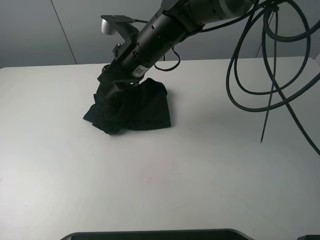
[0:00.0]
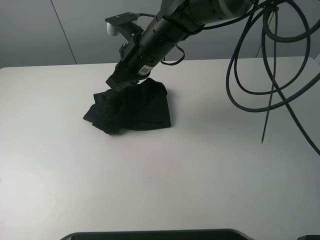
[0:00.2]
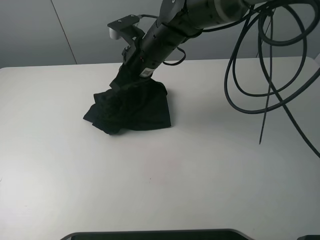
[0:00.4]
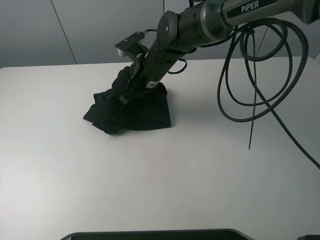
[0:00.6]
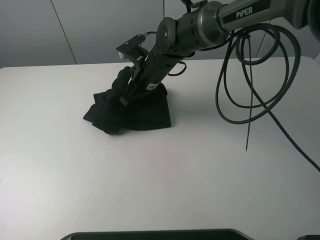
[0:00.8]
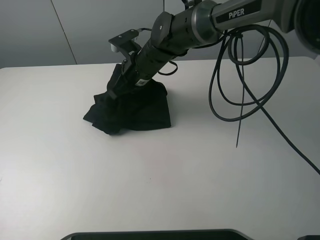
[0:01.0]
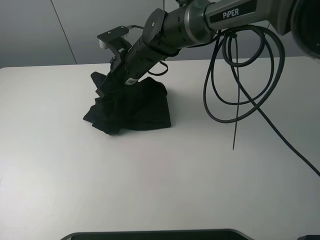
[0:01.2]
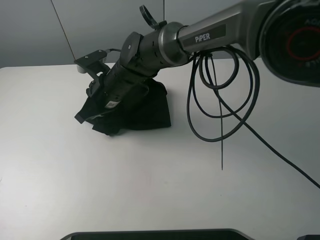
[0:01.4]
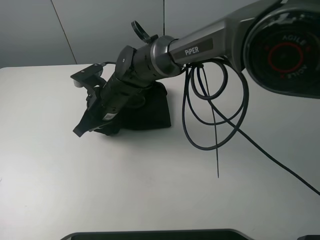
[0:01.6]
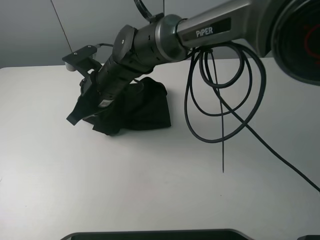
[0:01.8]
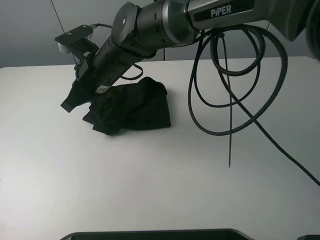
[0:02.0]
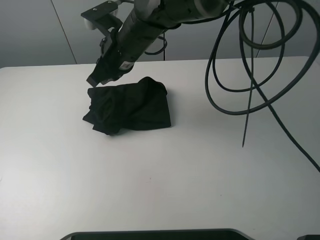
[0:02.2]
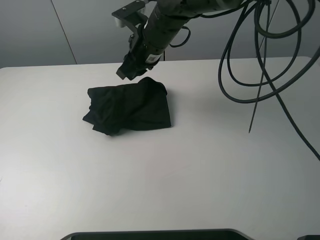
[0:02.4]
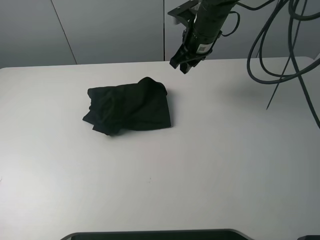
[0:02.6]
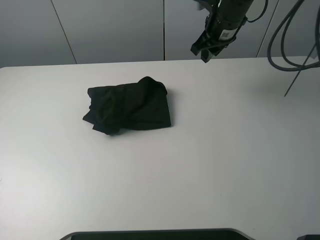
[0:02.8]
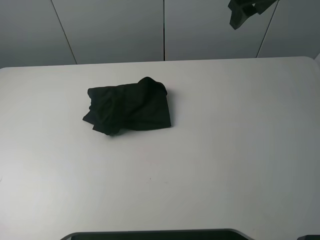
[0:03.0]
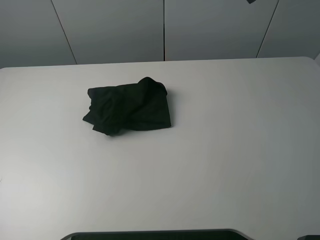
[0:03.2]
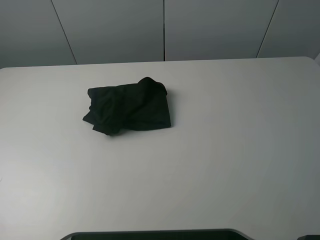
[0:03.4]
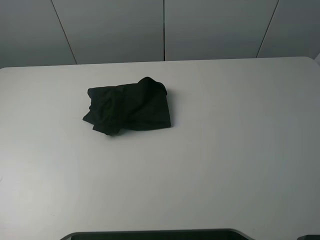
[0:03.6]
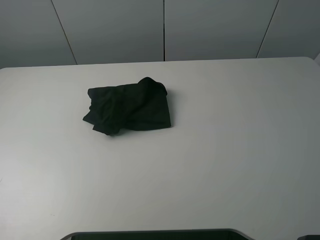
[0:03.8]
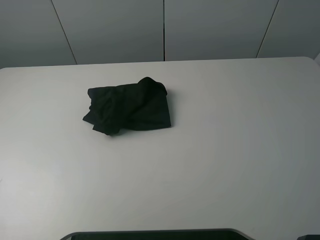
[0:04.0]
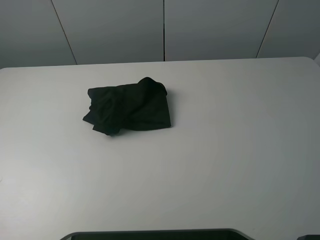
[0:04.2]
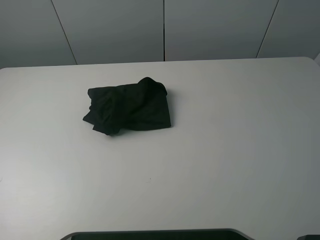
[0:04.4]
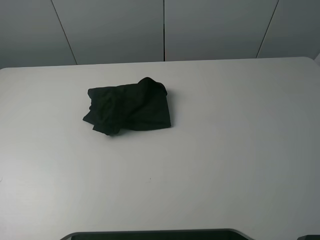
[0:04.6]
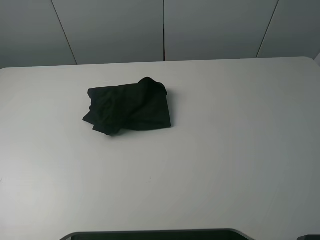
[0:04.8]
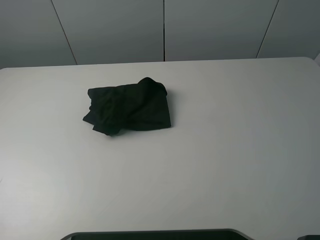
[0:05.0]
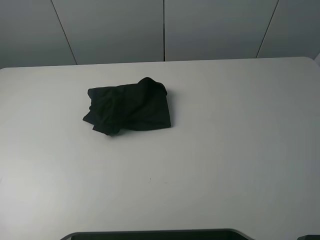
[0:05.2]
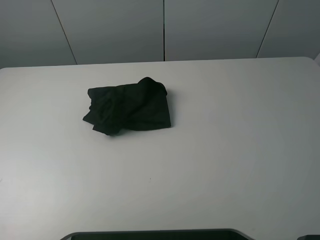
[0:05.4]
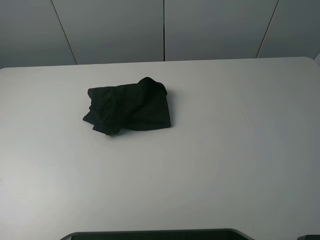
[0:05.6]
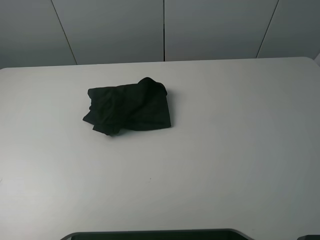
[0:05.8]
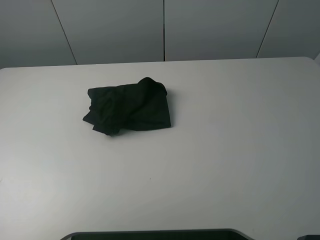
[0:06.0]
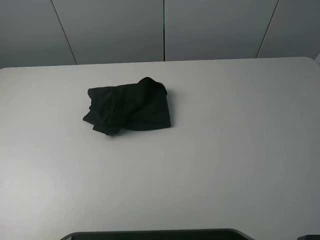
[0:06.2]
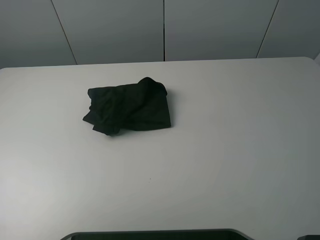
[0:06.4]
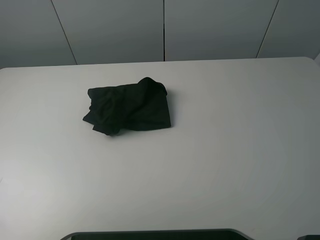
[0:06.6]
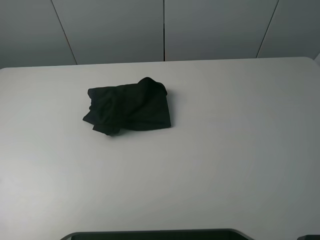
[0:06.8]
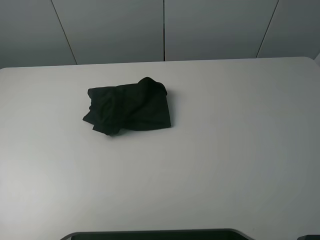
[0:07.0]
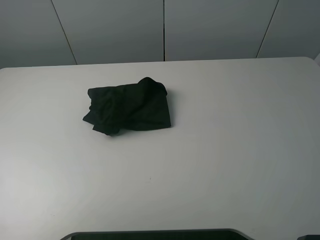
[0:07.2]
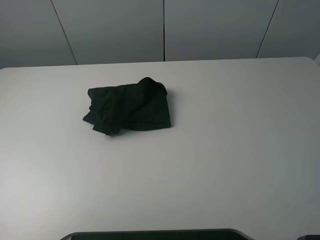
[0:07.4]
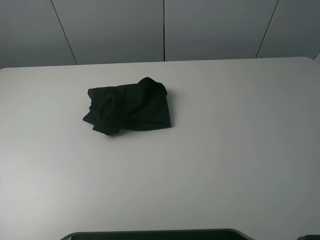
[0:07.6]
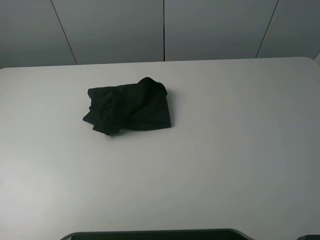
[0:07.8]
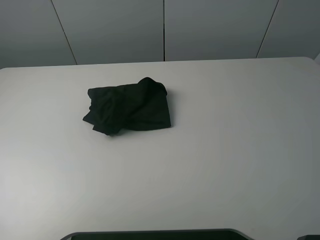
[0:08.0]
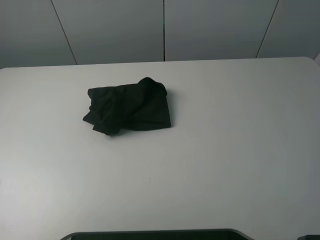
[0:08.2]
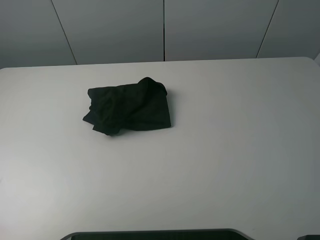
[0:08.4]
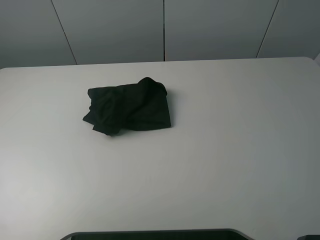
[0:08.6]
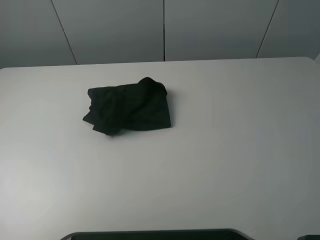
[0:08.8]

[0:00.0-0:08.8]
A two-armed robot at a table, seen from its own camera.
Task of the whole recording: fold the clothes on the table.
0:00.0 to 0:01.4: The right gripper heads downward and to the left, covering roughly 10 cm, and closes its fingers.
0:01.4 to 0:03.0: The left gripper goes approximately 30 cm to the left, backward and upward. The right gripper travels to the right and upward by approximately 35 cm, and opens.
0:03.0 to 0:04.4: The right gripper heads backward, covering approximately 40 cm.
